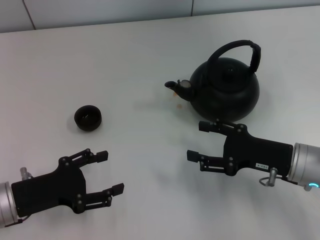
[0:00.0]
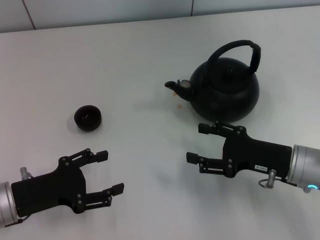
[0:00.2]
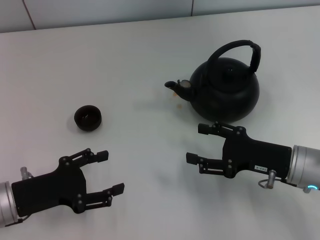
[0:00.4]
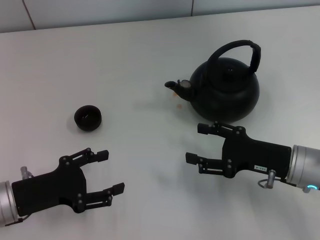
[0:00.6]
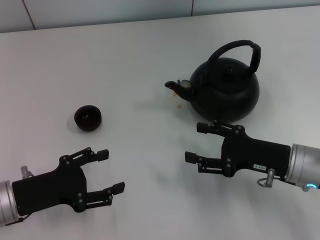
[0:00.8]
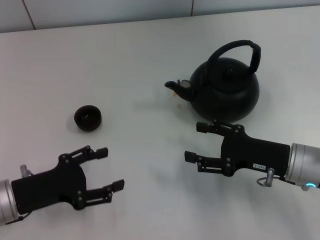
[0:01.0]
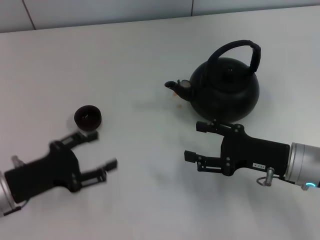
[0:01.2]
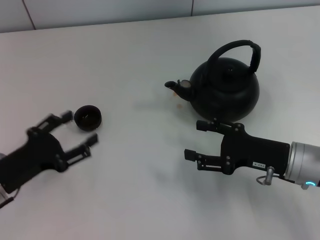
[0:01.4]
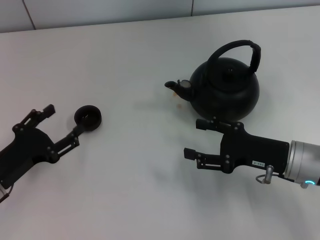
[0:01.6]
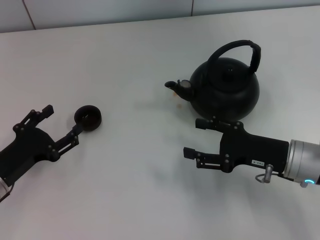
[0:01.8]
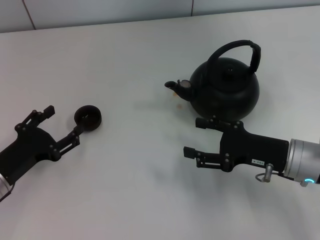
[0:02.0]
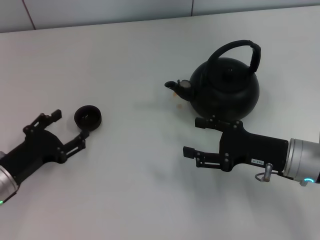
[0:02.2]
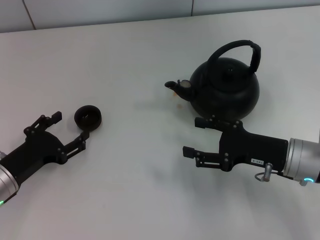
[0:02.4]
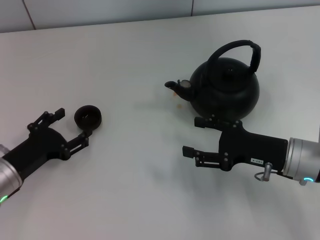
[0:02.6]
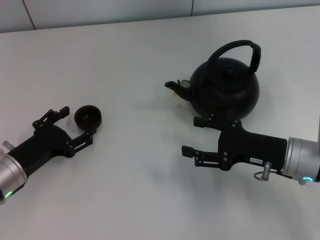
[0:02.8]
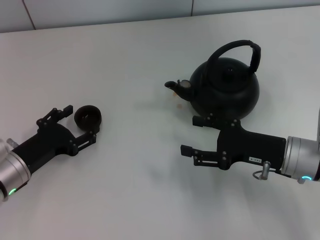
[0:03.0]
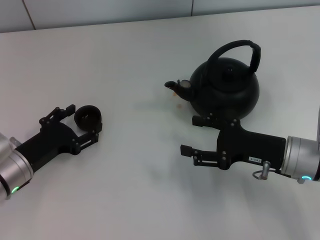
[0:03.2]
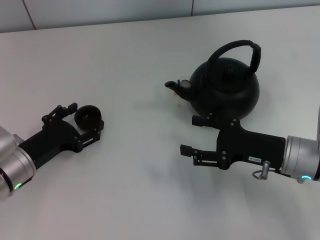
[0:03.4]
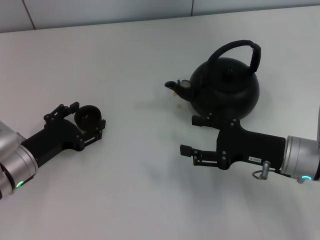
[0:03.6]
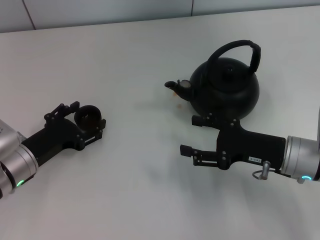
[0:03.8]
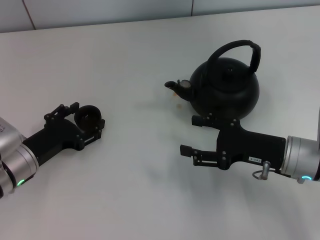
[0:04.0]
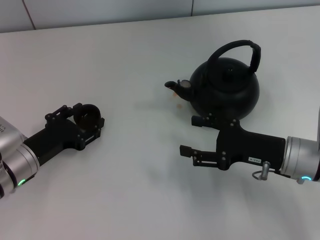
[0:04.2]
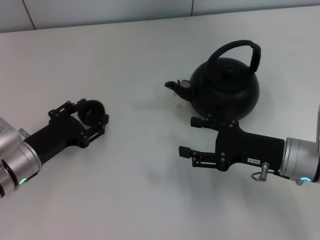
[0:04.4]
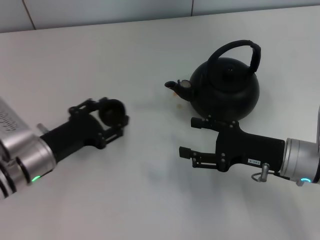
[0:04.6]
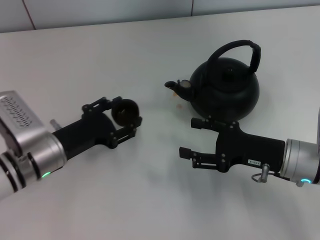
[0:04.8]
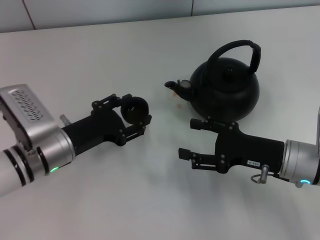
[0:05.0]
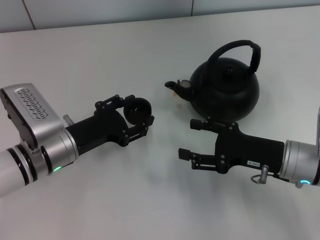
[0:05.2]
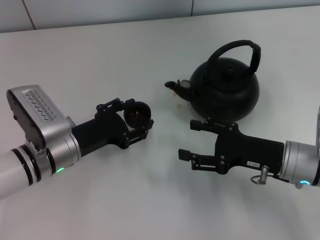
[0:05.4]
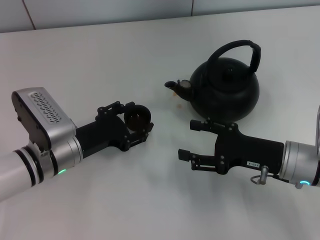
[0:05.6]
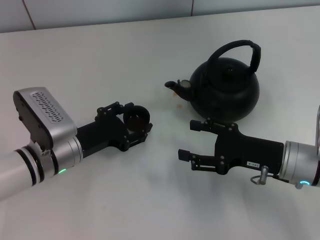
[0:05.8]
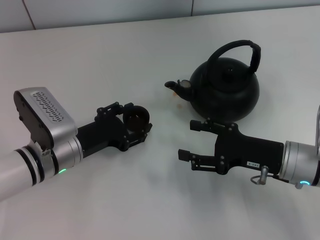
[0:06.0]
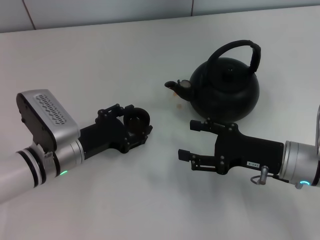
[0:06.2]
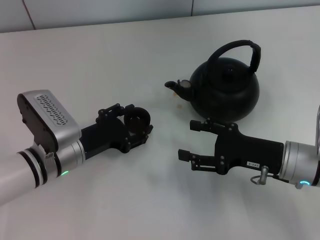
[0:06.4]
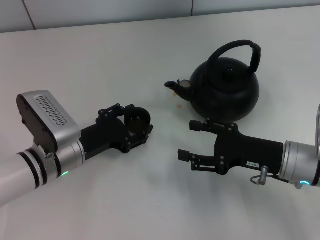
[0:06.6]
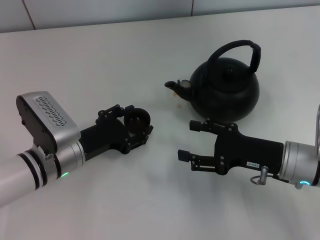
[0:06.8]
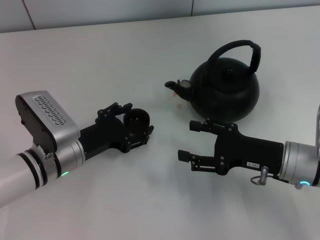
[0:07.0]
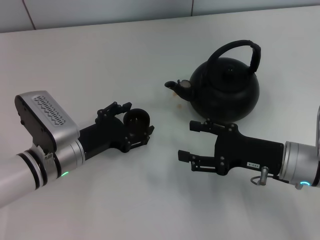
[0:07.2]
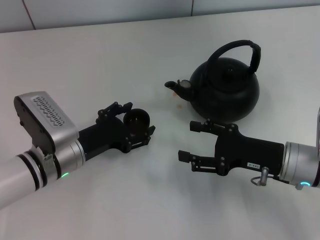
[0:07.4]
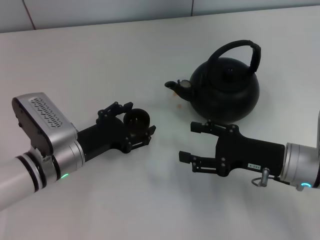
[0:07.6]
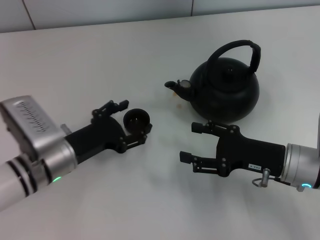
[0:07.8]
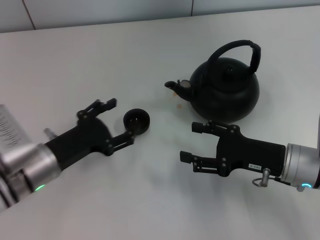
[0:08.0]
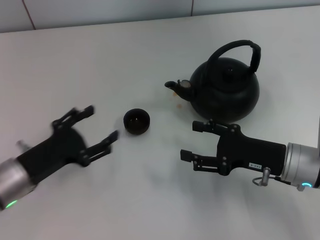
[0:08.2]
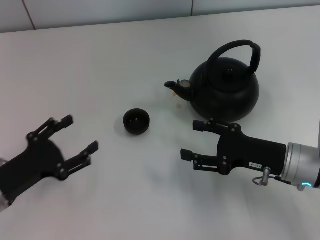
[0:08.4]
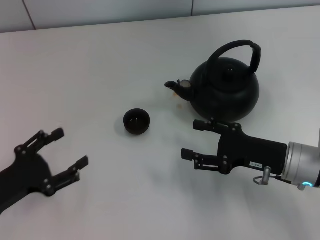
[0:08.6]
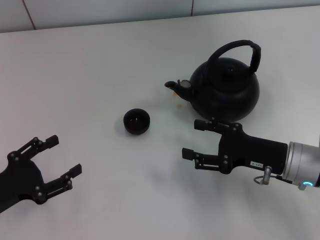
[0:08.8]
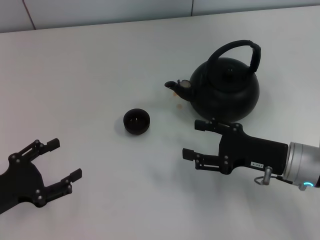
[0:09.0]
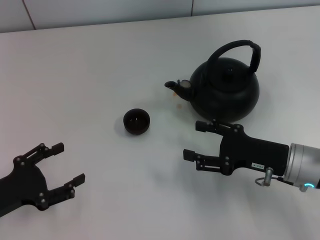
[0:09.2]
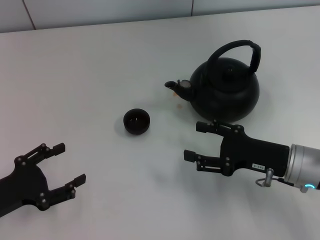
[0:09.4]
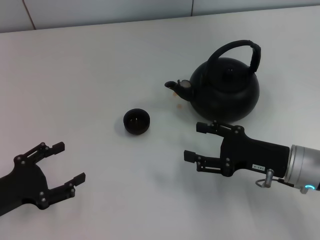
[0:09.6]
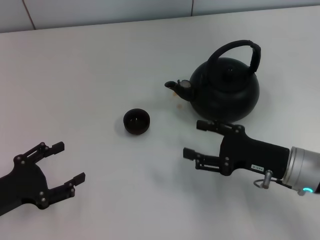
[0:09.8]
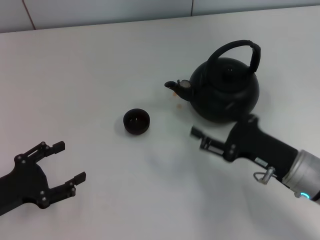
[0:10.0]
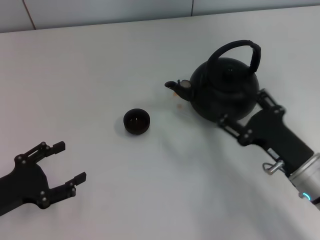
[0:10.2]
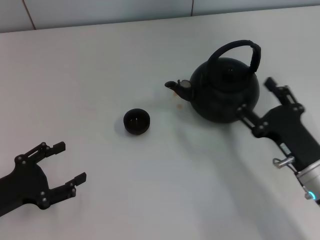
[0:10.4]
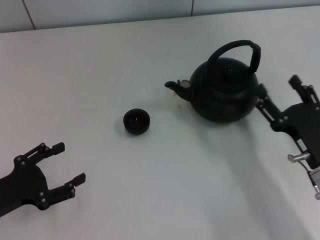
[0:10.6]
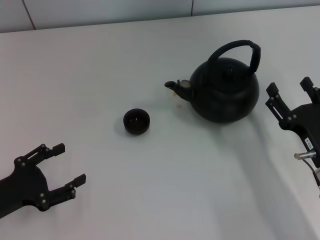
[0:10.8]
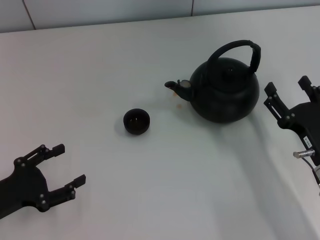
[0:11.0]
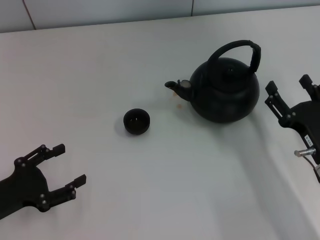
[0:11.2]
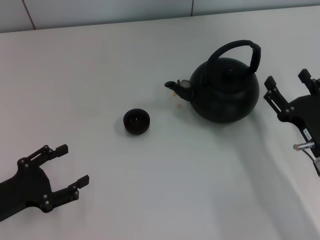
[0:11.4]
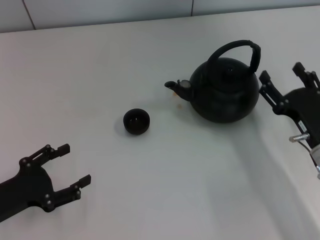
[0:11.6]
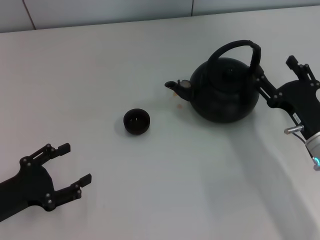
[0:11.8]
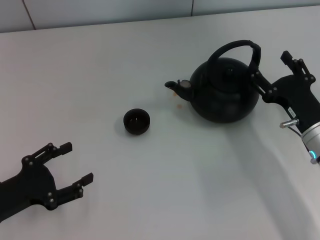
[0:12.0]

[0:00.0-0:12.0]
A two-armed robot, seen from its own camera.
Task of the whole recording: Grasp the handle of the teapot with one hand and pour tea into the teacup.
Step, 0:00.0 to 0:04.4: Pick up the teacup with the left gripper.
Step, 0:04.8 to 0:08.0: Place the teacup in the center of view with the left gripper.
0:01.6 to 0:03.0: The grippers stay close to where they were, moving slightly.
0:03.0 to 0:04.4: The left gripper closes.
0:04.4 to 0:06.0: The left gripper shifts some 5 cm to the right.
0:06.0 to 0:07.6: The left gripper opens its fingers.
0:07.6 to 0:09.0: The left gripper travels to the left and backward by roughly 15 cm.
0:09.0 to 0:10.4: The right gripper moves some 5 cm.
0:10.4 to 0:12.0: The right gripper shifts some 5 cm forward.

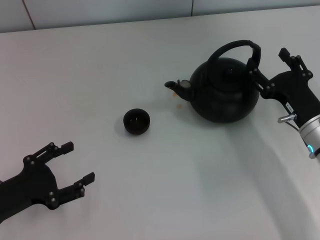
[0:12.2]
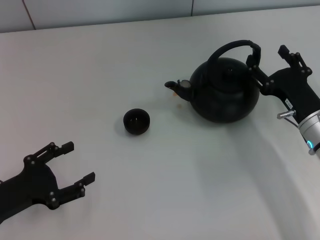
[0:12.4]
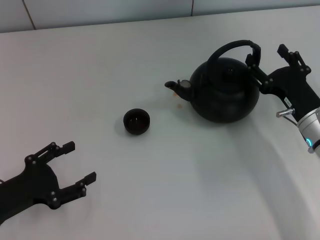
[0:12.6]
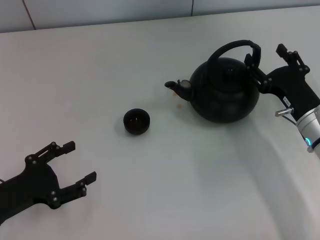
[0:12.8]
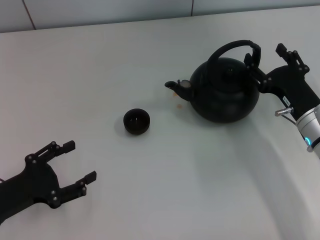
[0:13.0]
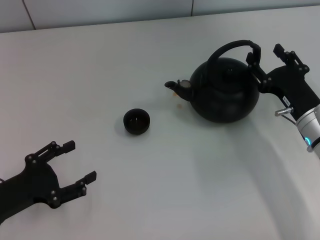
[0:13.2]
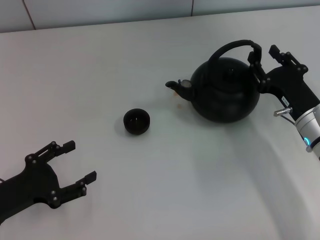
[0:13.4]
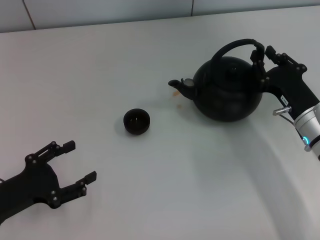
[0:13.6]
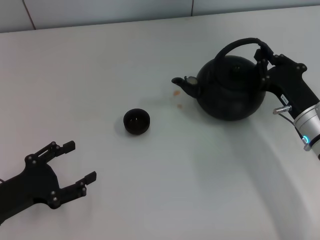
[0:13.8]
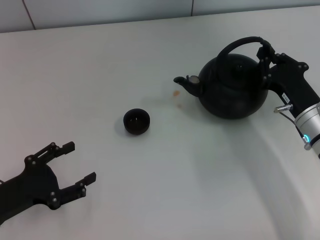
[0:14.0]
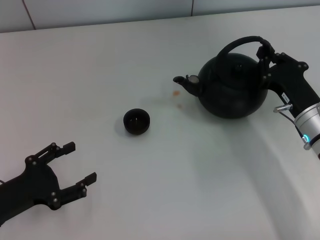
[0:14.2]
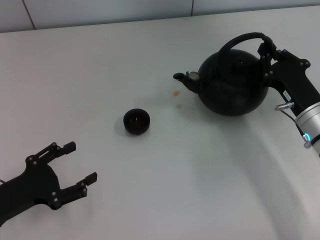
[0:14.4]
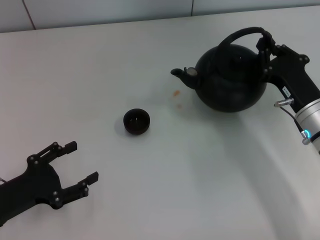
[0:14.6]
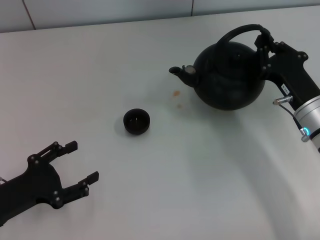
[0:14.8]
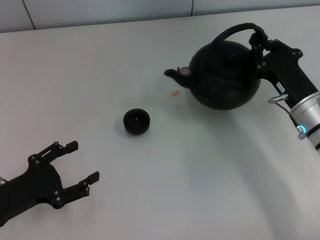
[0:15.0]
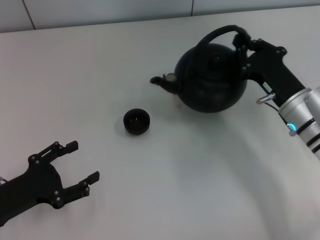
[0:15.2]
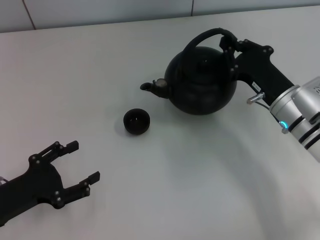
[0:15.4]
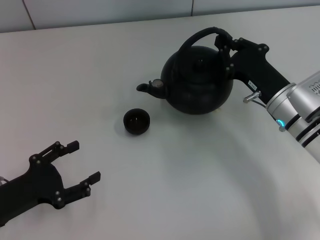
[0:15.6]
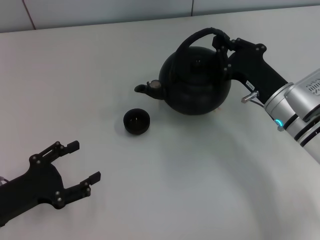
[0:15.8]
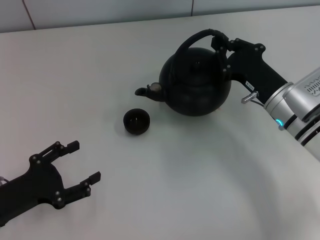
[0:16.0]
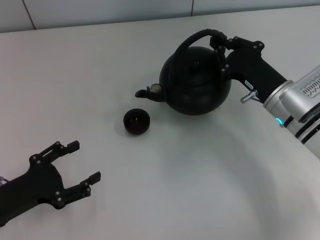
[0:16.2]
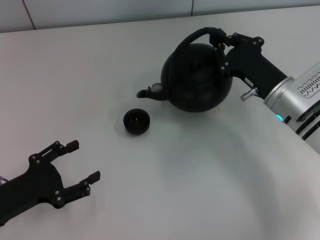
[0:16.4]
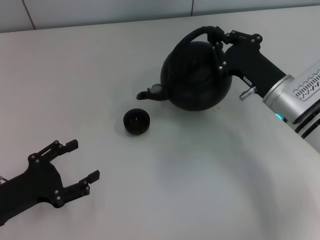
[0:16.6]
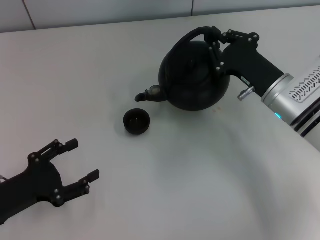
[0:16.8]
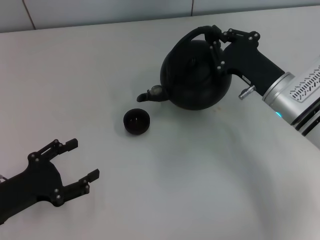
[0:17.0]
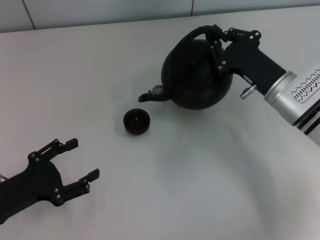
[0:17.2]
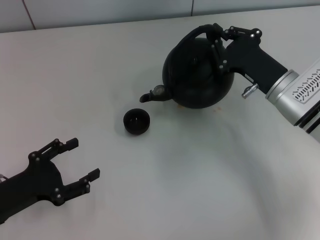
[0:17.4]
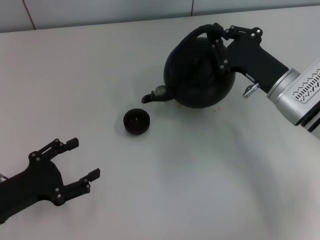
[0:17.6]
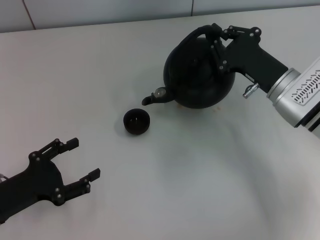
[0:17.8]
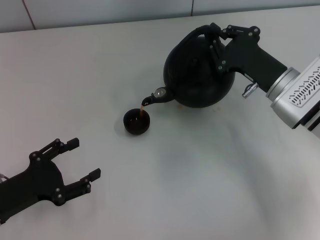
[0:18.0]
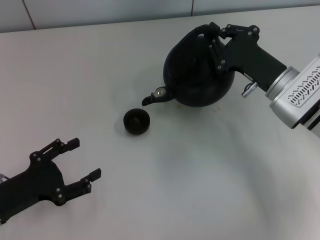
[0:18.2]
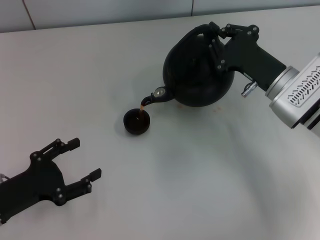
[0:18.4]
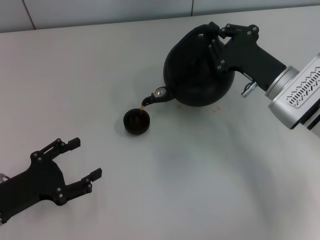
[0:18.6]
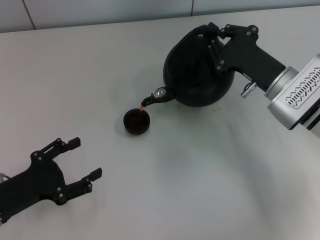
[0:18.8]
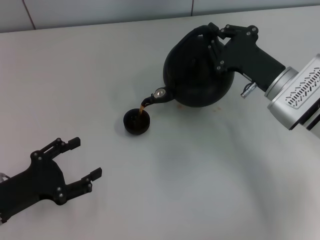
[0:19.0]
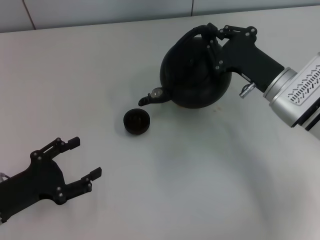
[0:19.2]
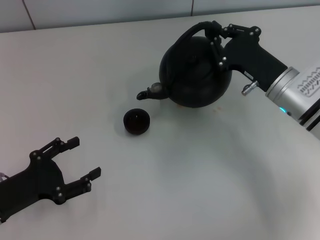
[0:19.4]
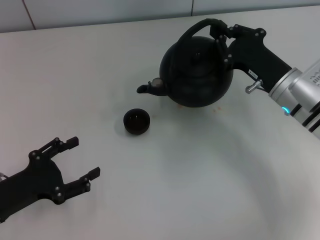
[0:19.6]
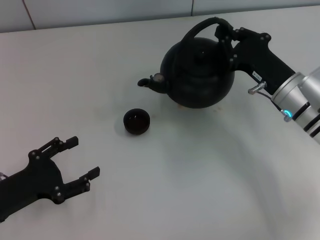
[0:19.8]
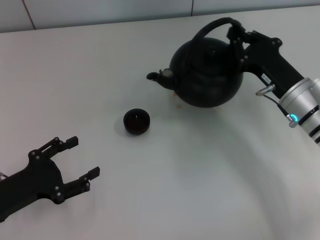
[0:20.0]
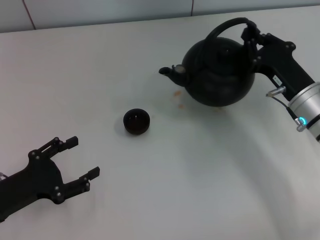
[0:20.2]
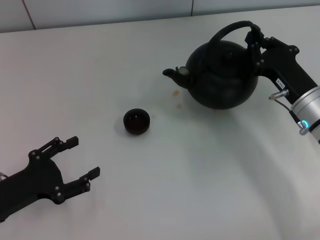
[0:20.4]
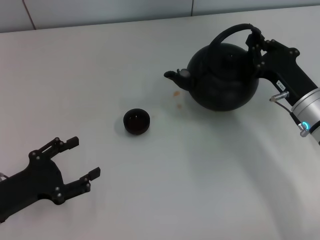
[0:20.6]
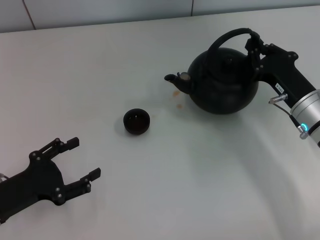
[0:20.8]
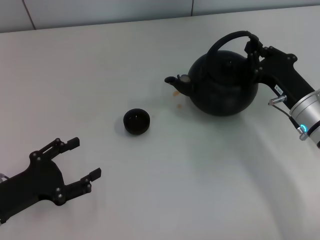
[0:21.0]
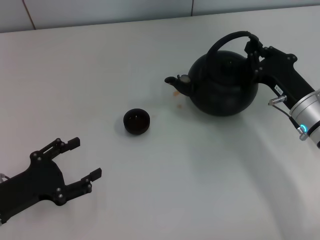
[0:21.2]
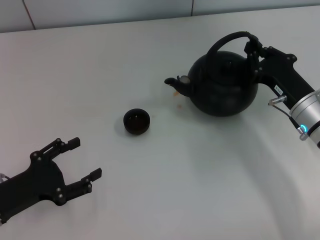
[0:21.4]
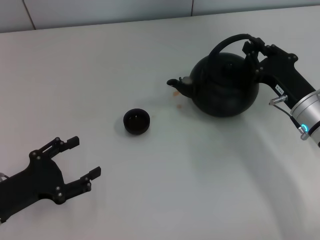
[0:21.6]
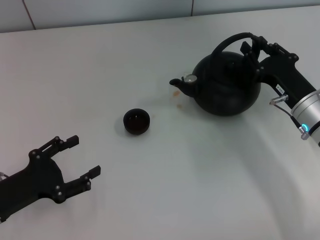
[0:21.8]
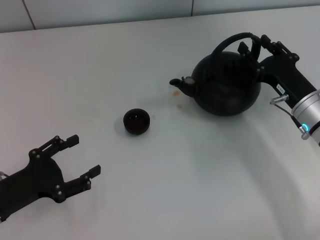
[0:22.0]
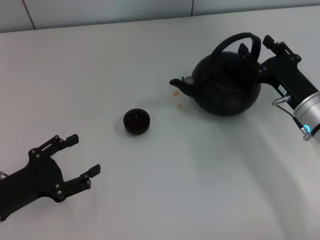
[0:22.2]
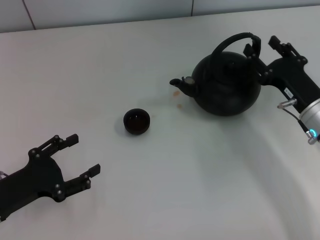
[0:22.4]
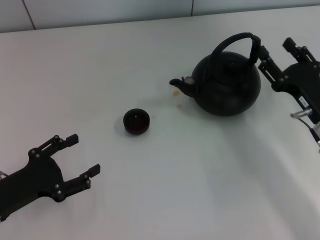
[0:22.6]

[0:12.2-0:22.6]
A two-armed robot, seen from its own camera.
Task of the whole recording: Grasp the handle of the teapot with one hand and pour tea into the teacup.
Step, 0:12.2 to 0:15.0: Pick up the teapot with the right gripper.
0:12.2 to 0:13.6: The right gripper closes.
0:13.6 to 0:15.2: The right gripper closes.
0:15.2 to 0:16.6: The grippers make only small movements.
0:16.6 to 0:19.6: The grippers make only small movements.
0:19.6 to 0:21.2: The grippers stay close to where they were, moving slightly.
0:21.2 to 0:22.6: The right gripper opens.
